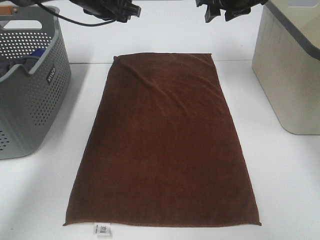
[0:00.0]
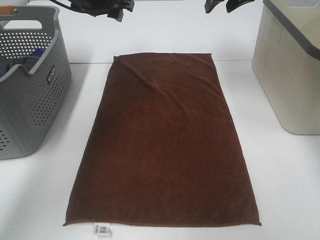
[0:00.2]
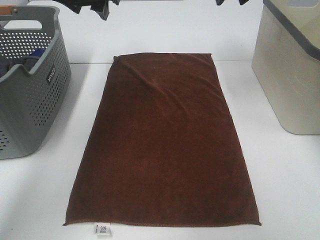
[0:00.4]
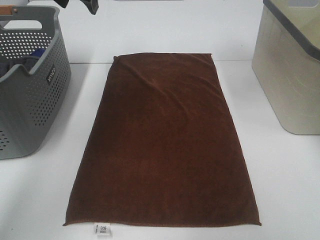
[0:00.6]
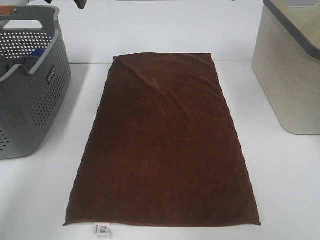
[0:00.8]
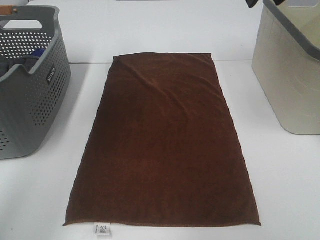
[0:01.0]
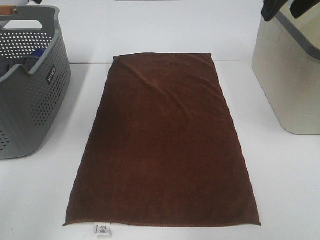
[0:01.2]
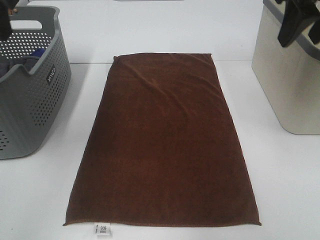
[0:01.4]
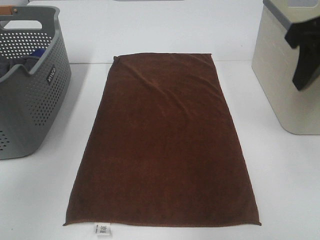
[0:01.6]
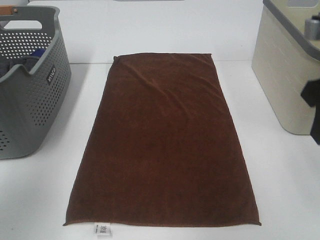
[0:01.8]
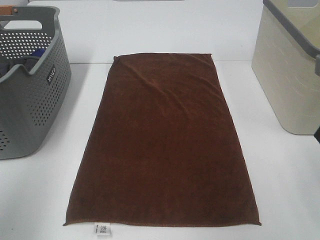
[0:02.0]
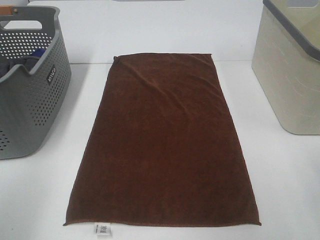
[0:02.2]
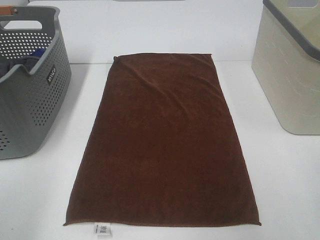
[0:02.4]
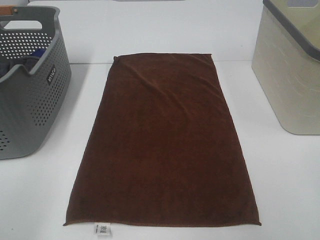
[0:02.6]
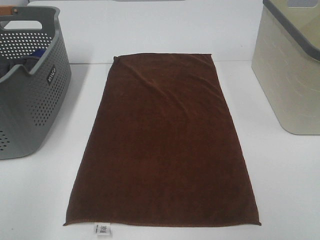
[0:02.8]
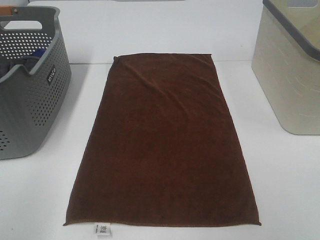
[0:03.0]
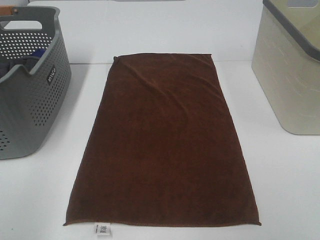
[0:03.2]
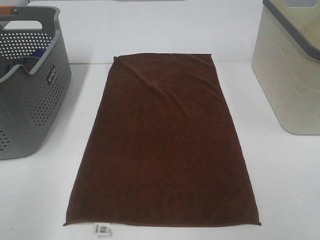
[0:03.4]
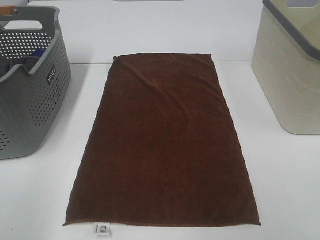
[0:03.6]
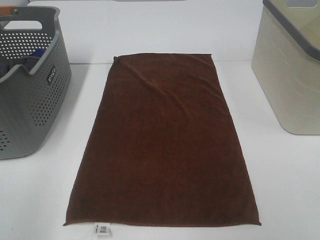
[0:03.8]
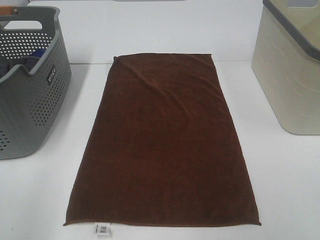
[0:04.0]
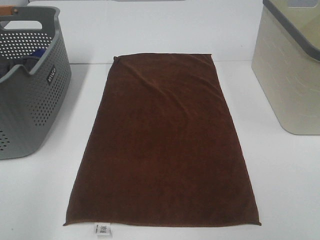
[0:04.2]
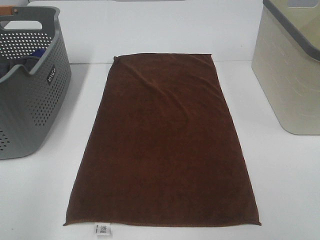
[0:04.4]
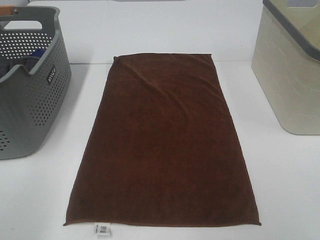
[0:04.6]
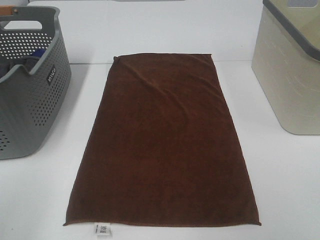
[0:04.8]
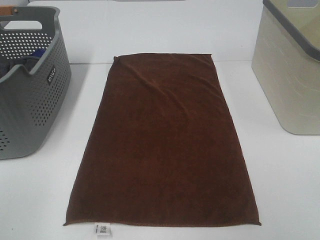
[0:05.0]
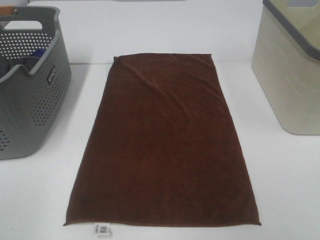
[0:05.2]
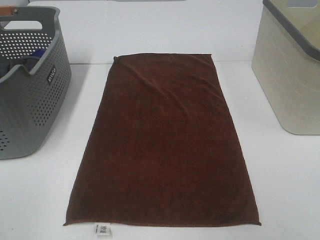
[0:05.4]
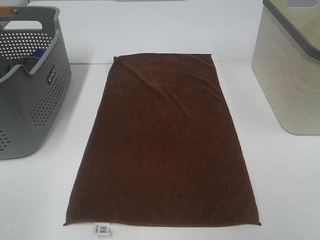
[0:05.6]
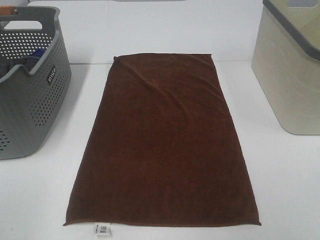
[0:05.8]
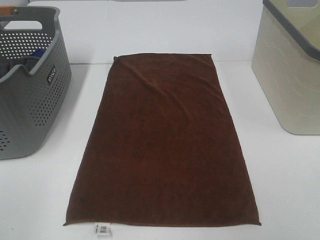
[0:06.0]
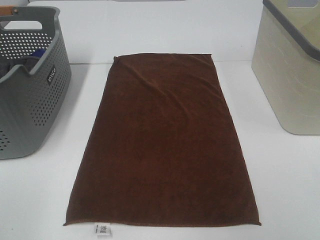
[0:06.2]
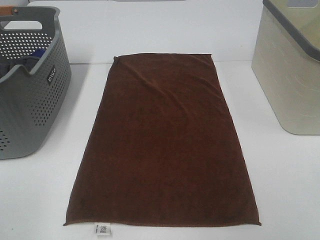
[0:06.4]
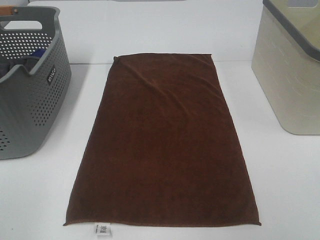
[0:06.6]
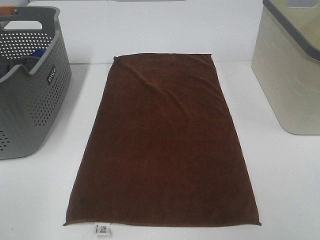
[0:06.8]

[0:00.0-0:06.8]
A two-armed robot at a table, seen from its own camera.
Task of the whole recording: Remove the towel and place it.
0:00.0 to 0:01.4: The left gripper is displaced backward, upward and to the left by approximately 30 cm. Meanwhile the right gripper travels backward by approximately 20 cm.
0:01.4 to 0:02.8: The right gripper is displaced backward by some 25 cm, while the left gripper travels backward and downward by about 25 cm.

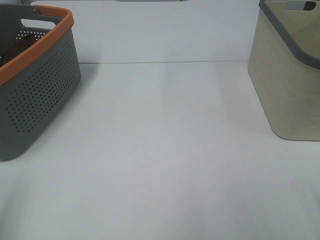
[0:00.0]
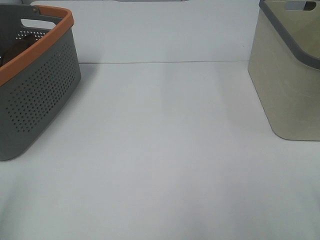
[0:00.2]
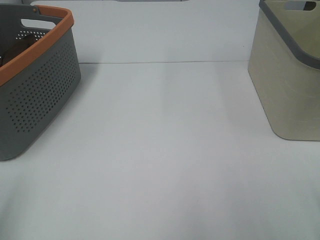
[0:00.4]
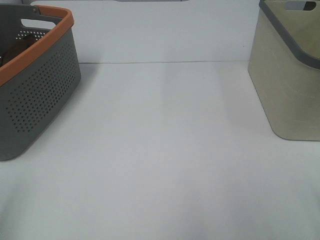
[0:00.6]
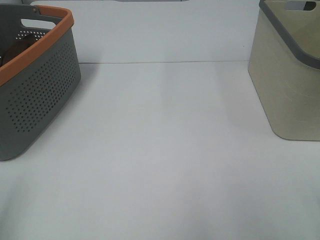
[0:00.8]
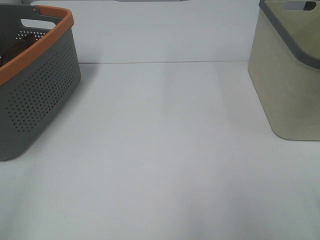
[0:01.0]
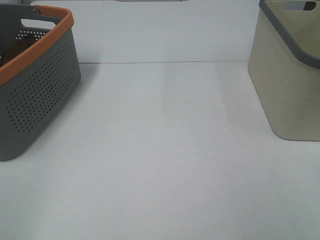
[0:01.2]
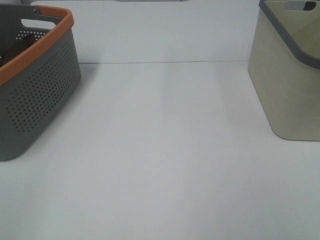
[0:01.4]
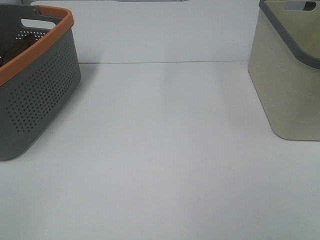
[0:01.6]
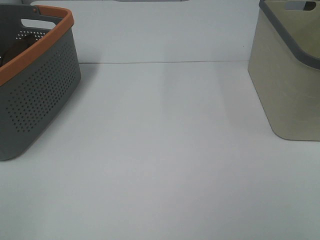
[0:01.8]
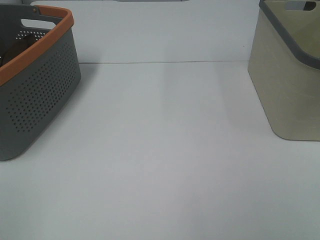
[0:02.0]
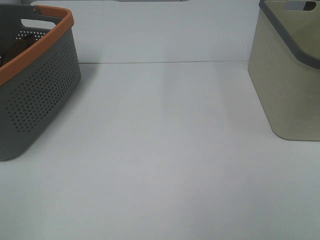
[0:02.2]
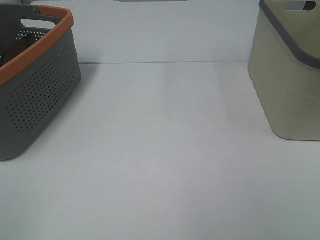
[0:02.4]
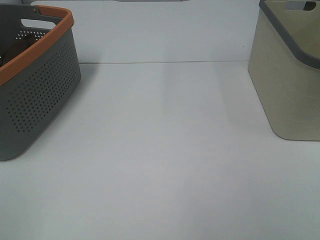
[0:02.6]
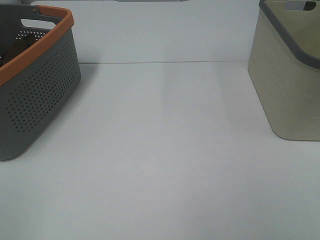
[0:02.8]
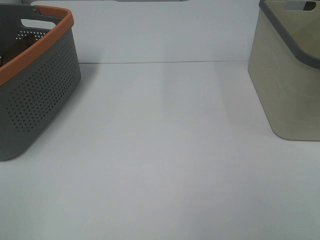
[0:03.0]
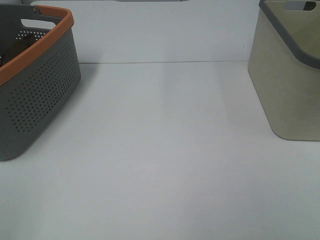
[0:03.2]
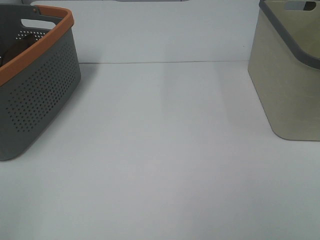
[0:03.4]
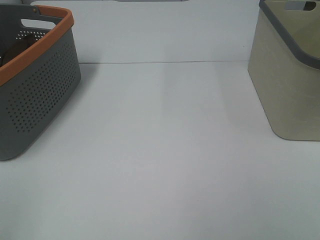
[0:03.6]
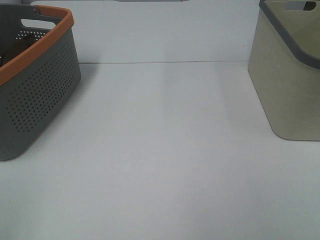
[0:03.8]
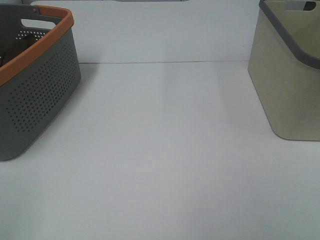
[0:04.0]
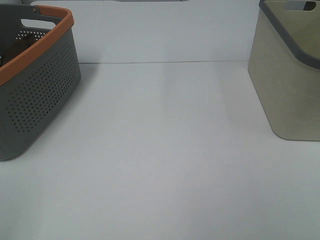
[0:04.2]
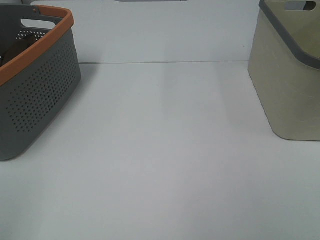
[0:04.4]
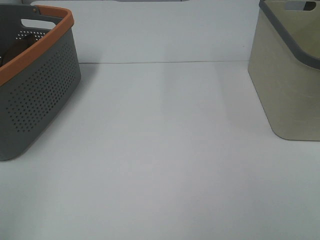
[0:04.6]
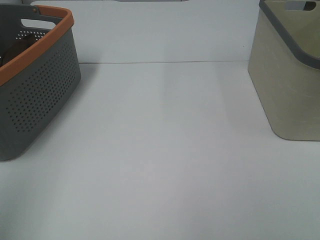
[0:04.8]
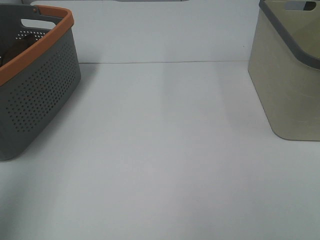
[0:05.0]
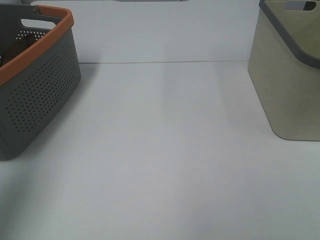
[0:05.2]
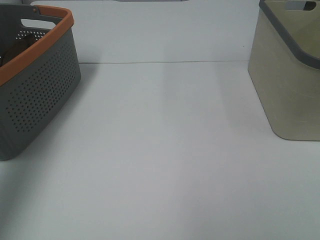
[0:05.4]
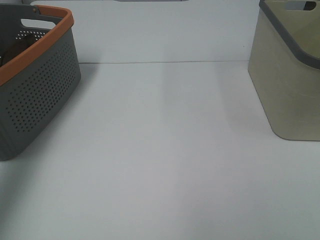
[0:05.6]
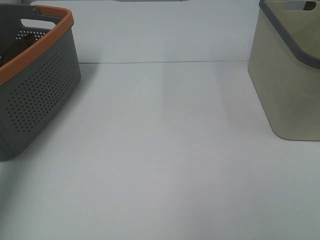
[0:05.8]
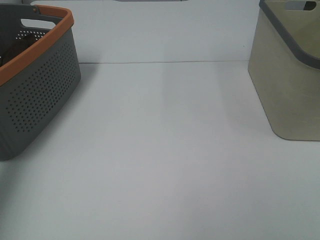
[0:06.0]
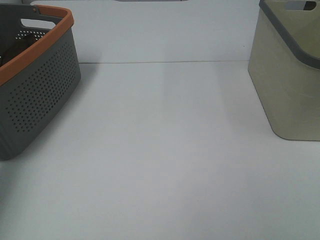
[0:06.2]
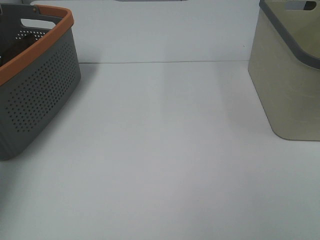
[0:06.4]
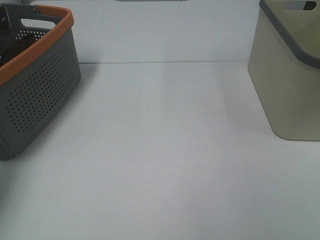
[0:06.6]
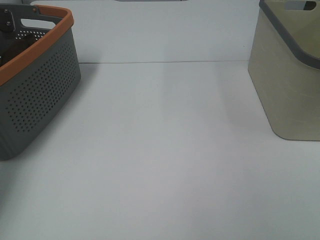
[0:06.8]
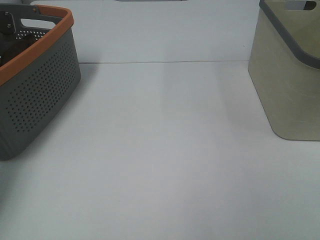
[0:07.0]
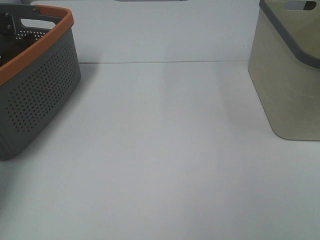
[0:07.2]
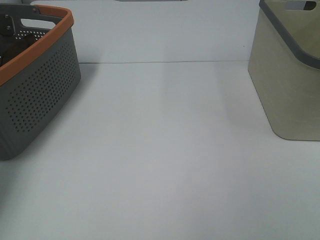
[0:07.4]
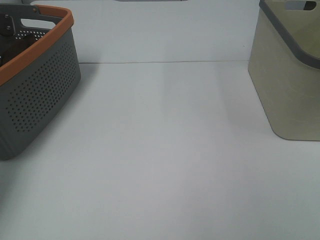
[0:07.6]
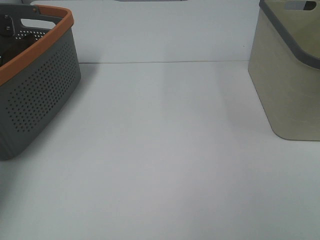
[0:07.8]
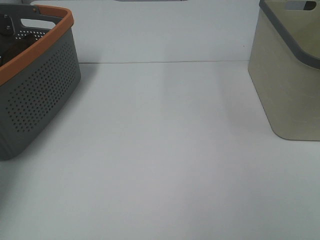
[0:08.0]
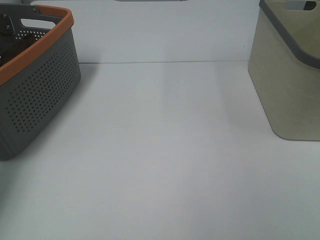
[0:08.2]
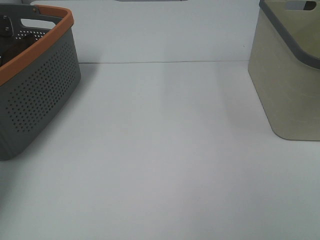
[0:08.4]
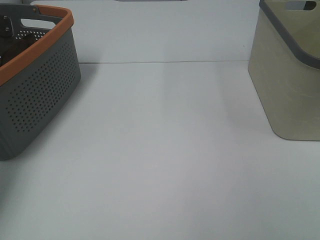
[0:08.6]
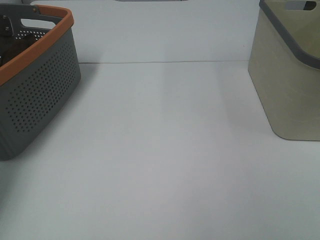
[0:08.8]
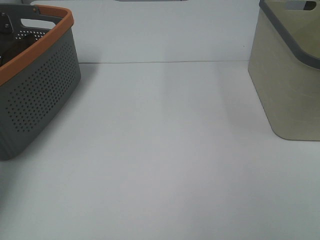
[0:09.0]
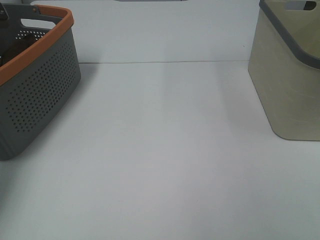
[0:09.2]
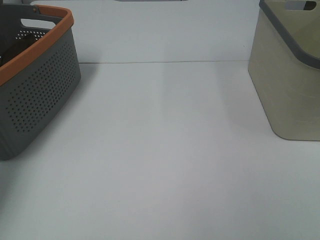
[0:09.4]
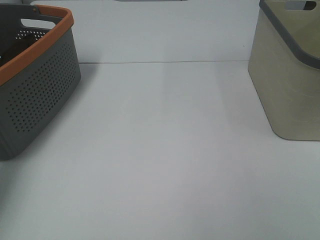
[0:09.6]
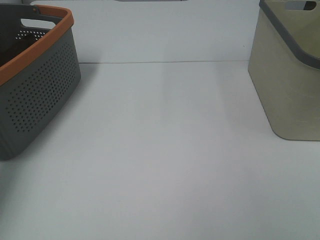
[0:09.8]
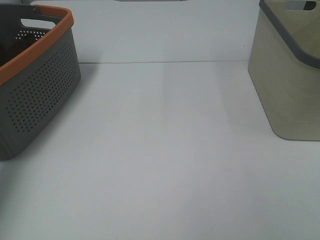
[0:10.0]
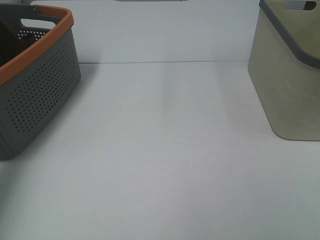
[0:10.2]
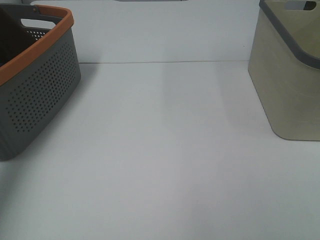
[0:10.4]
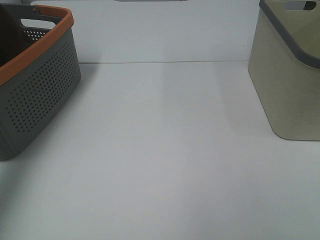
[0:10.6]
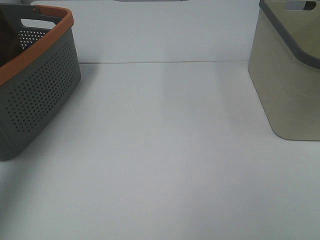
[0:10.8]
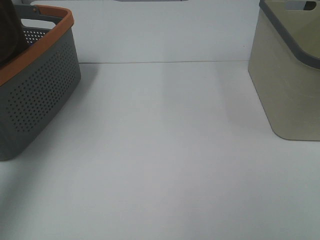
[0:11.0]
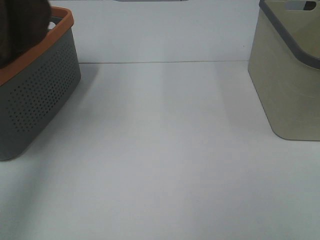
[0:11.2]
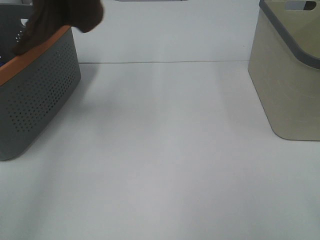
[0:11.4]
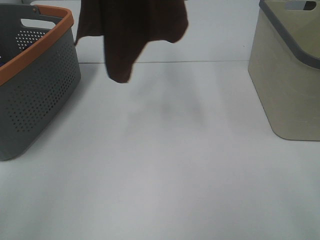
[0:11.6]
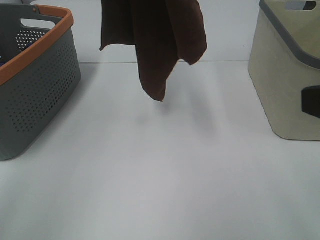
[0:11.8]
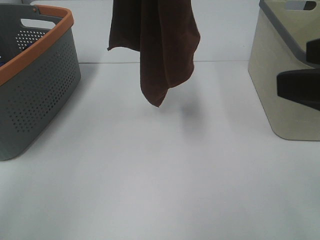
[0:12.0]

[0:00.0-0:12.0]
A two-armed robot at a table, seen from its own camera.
Task of the whole recording: Remove the towel and place it.
0:04.4 to 0:06.0: The left gripper goes approximately 40 cm forward.
0:10.4 to 0:12.0: The right gripper shifts some 15 cm forward. Meanwhile the left gripper goes roughly 25 cm to the right.

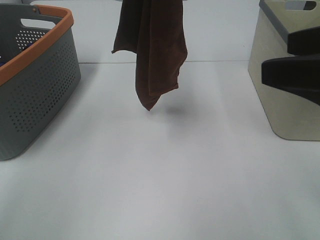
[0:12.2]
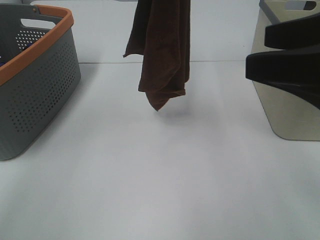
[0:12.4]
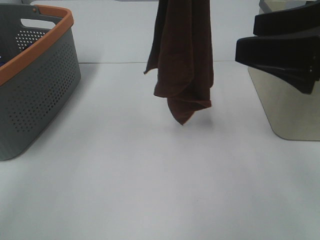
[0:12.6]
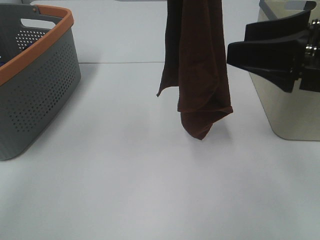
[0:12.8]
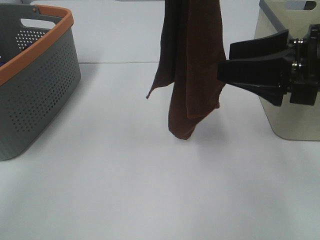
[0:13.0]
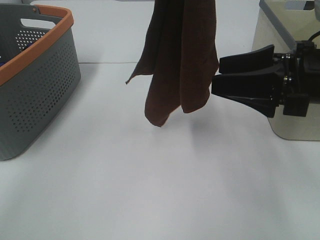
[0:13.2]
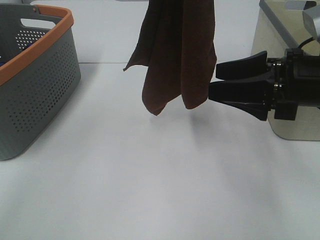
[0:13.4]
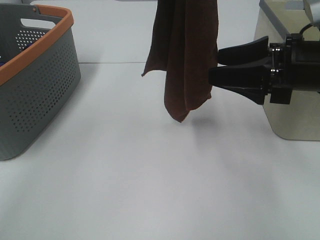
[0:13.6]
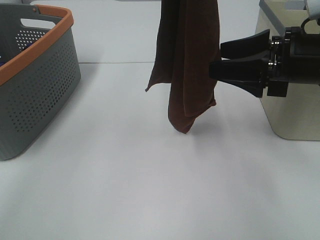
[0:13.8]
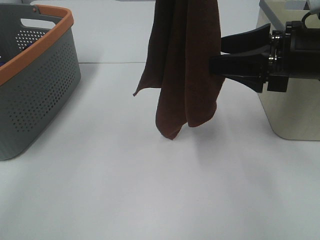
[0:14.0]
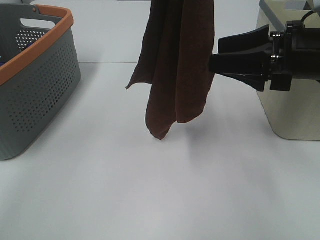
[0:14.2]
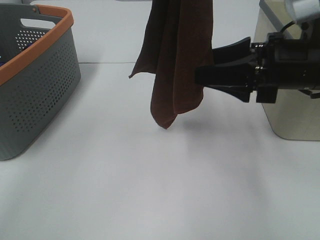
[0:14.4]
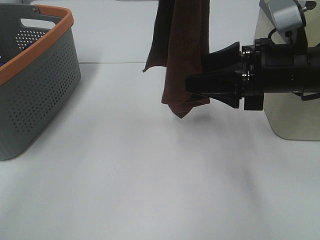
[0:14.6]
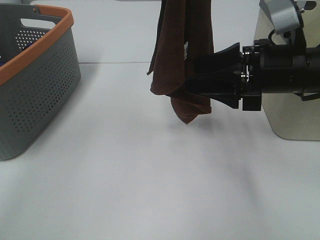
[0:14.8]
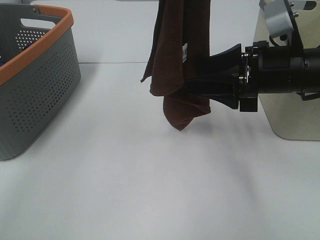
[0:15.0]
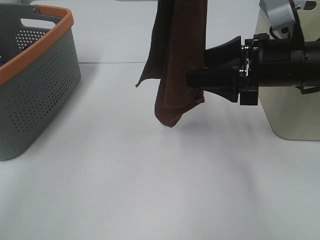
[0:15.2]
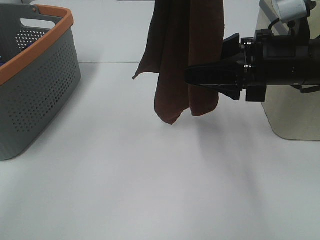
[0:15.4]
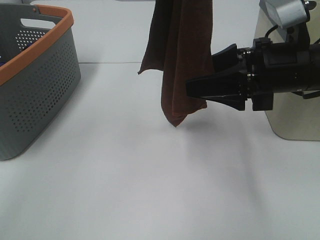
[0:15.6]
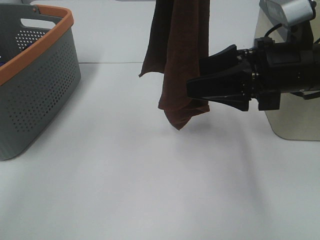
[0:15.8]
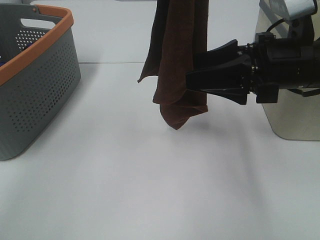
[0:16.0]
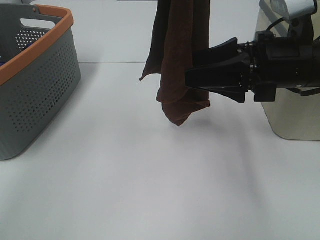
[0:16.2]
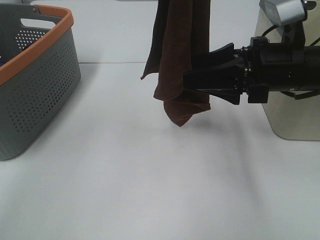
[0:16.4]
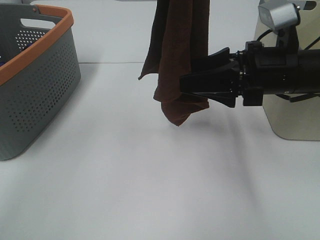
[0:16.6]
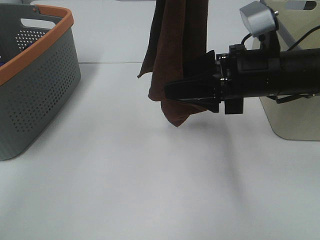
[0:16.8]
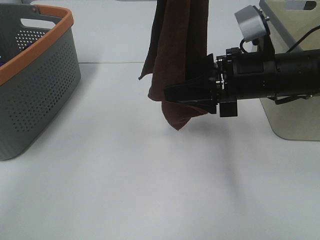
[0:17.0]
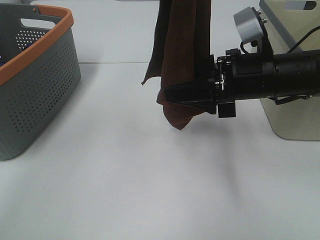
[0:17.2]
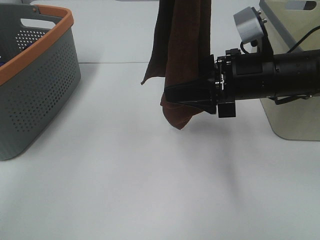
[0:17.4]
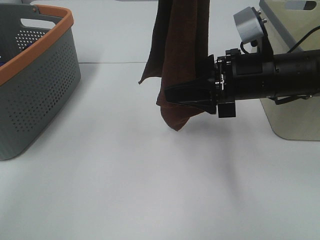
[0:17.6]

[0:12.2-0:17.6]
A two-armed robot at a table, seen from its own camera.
Task of the whole recording: Remove the towel and place it.
Step, 0:12.2 to 0:16.2: Right hand: grab a corner of the brown towel and straighten it.
0:12.2 to 0:13.6: The right gripper goes roughly 15 cm forward and downward.
0:13.6 to 0:16.2: The grippers stay close to where they were, moving slightly.
0:16.2 to 0:17.6: The grippers stay close to where they were, moving slightly.
